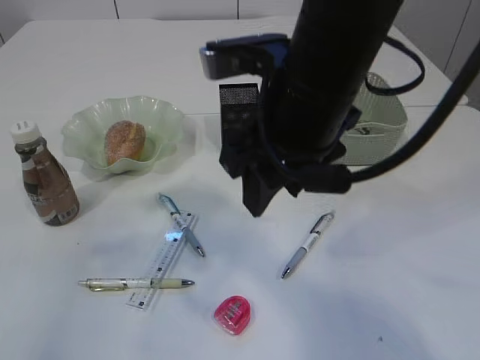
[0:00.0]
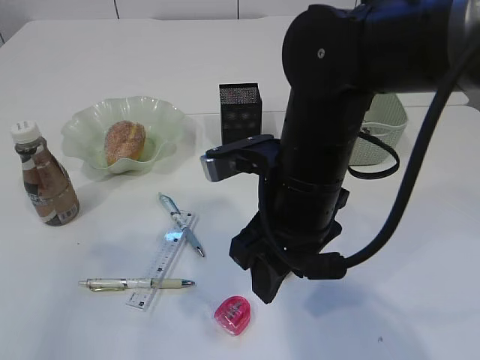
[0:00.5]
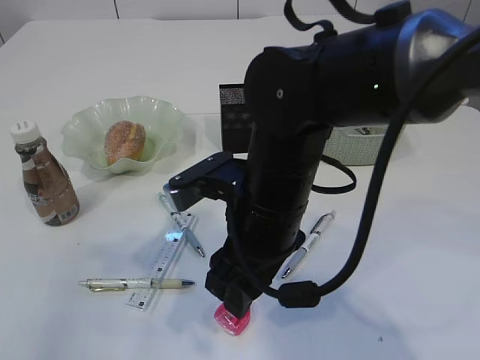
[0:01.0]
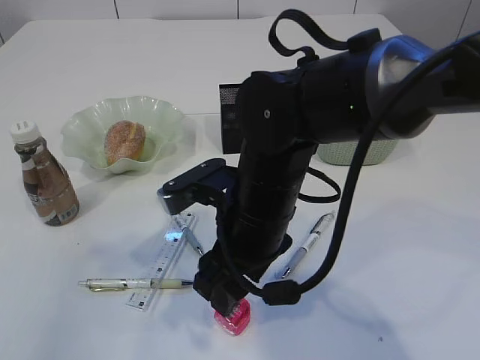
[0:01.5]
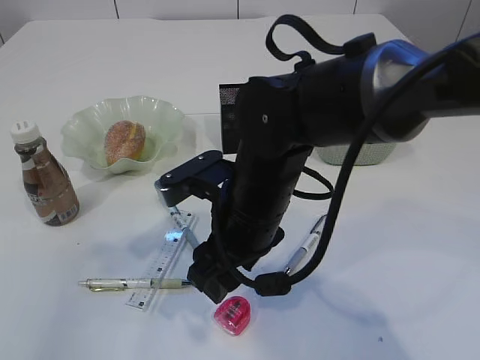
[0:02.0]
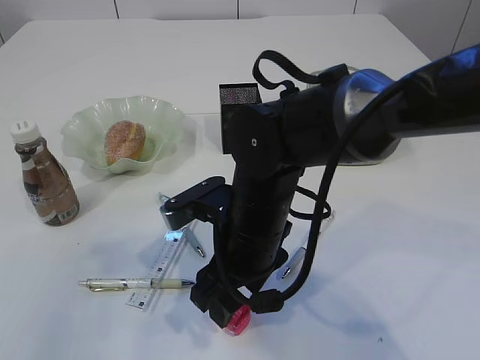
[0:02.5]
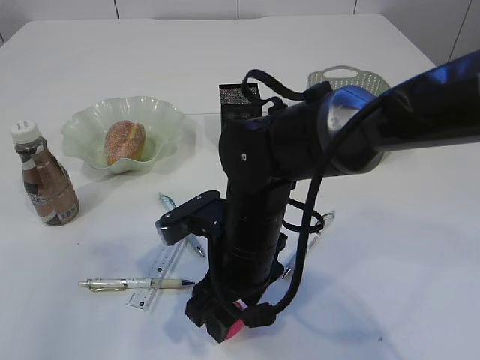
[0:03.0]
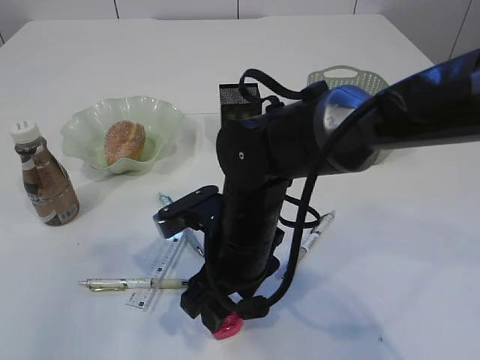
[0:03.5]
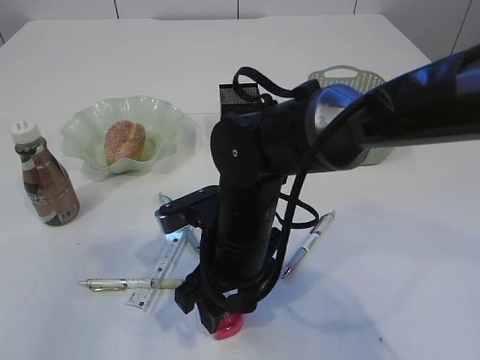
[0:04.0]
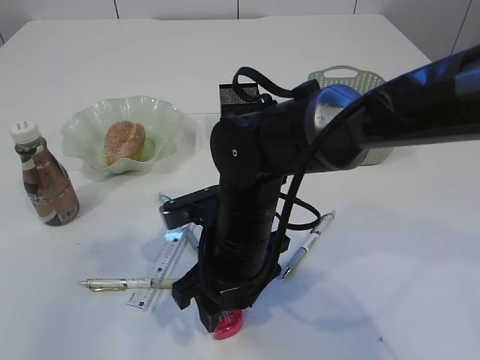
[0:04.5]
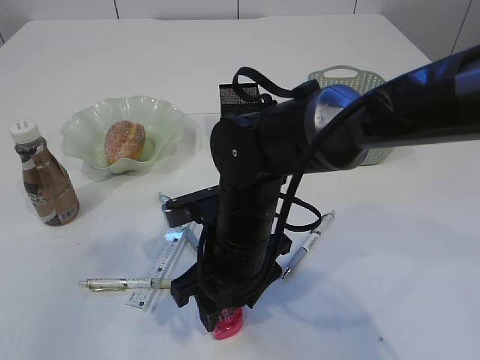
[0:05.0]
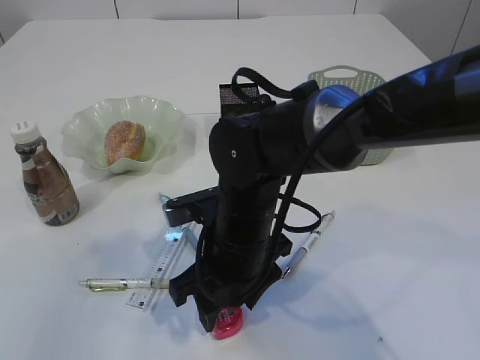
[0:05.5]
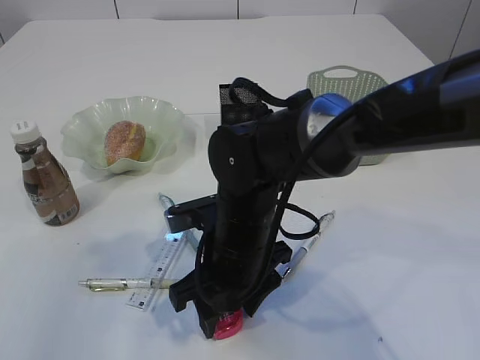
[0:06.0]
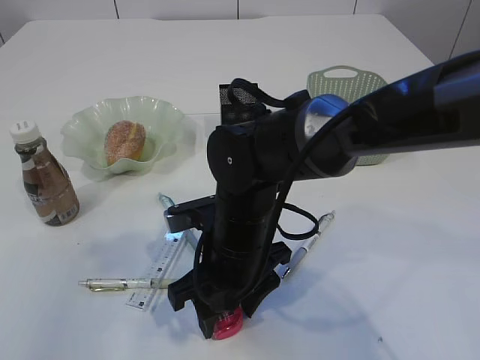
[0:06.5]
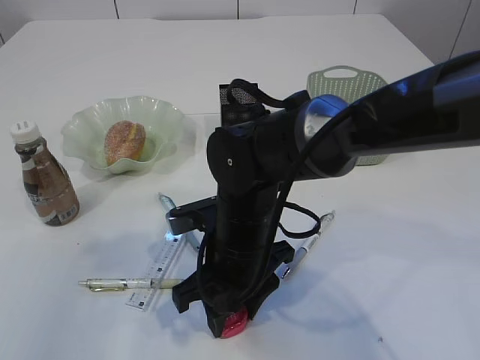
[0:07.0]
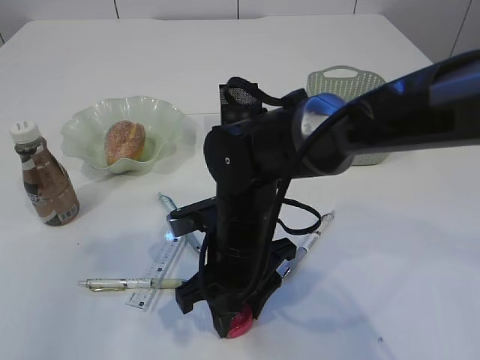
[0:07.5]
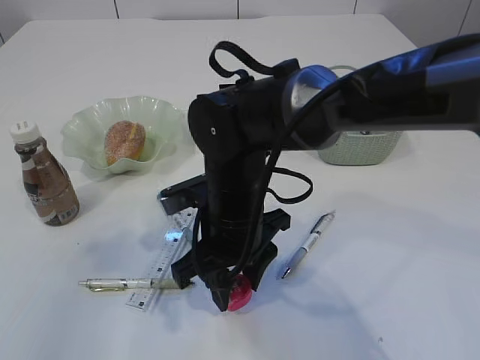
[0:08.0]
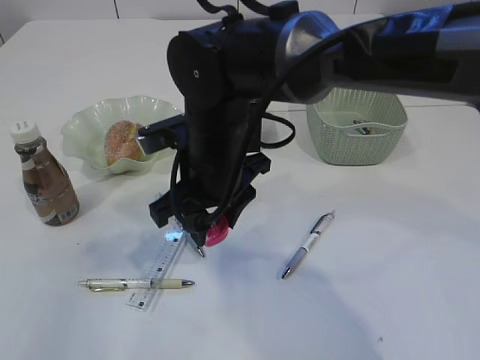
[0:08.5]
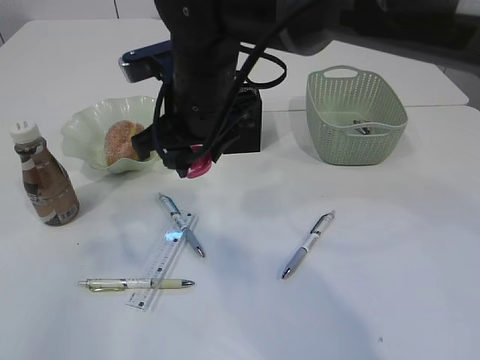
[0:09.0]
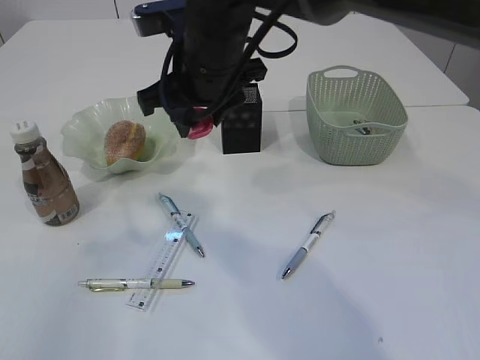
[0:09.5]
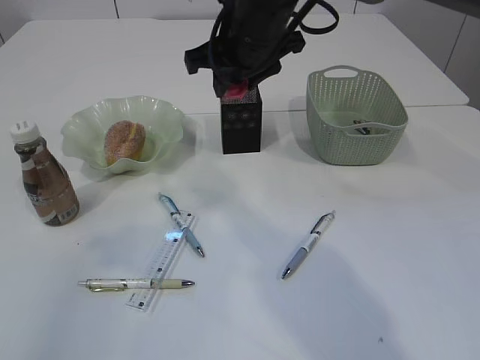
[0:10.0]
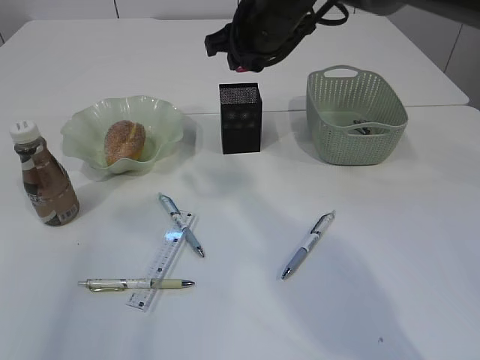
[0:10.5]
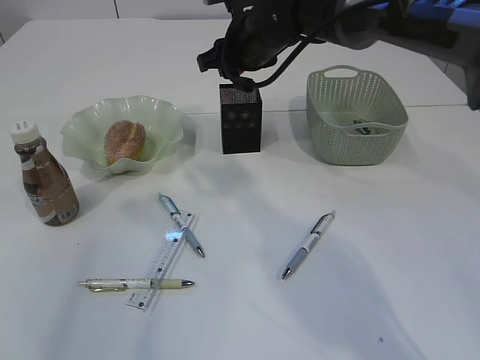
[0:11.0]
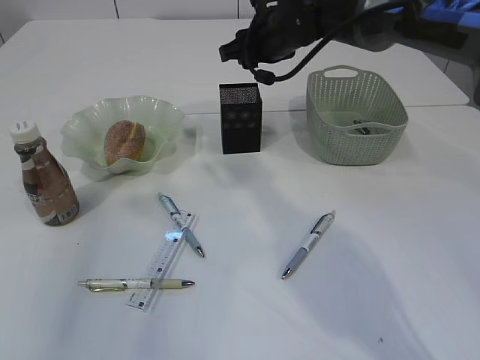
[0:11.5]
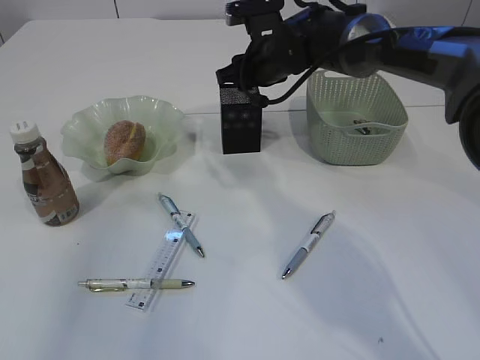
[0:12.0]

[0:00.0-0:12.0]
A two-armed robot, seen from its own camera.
Step, 0:00.0 to 0:08.0: Pick up the red pencil sharpener.
0:00.0 to 0:02.0: The right gripper shifts some 10 cm downward.
0:02.0 to 0:04.0: The grippers move only a little.
0:04.0 to 0:08.0: The grippers move only a little.
0:08.0 to 0:10.0: The right gripper shifts some 20 cm upward and forward.
0:10.0 to 0:12.0: The right gripper heads forward and downward, covering approximately 10 cm.

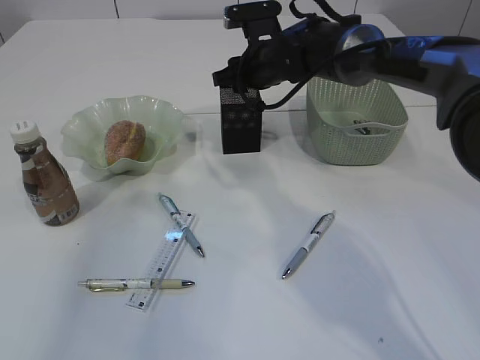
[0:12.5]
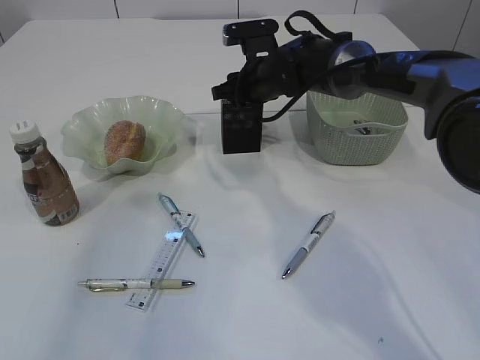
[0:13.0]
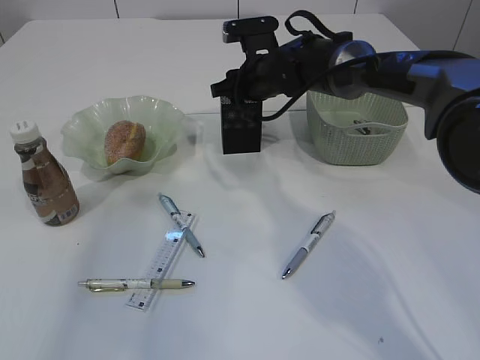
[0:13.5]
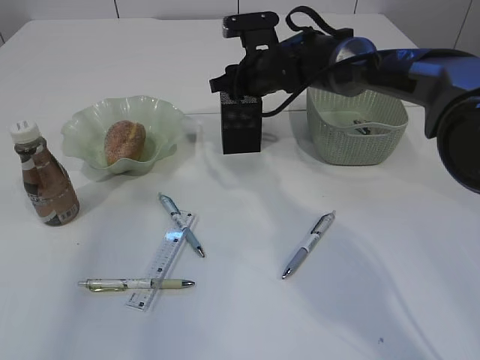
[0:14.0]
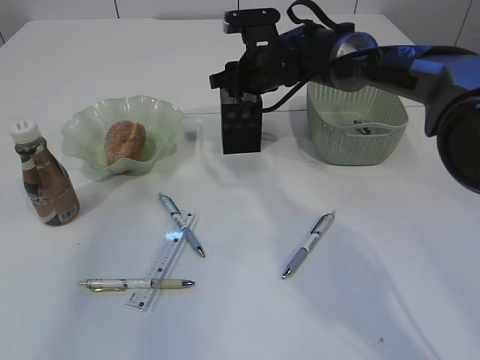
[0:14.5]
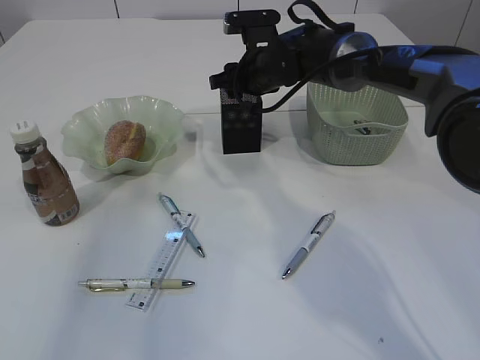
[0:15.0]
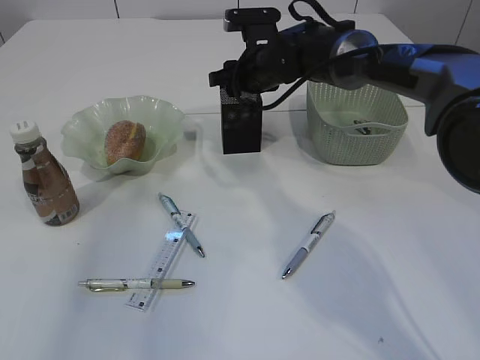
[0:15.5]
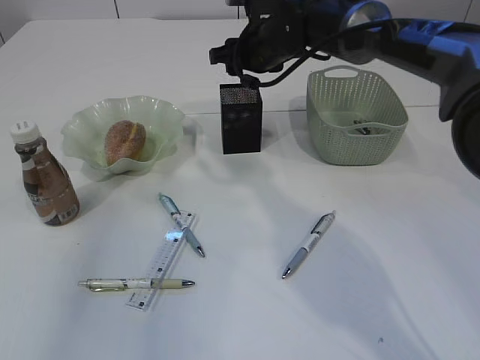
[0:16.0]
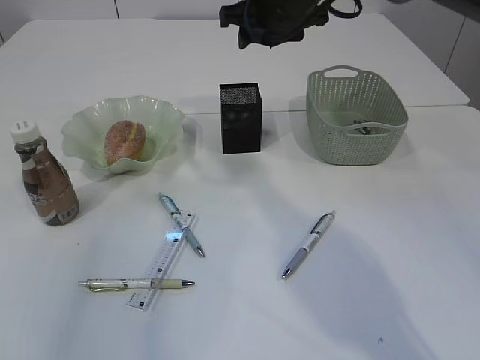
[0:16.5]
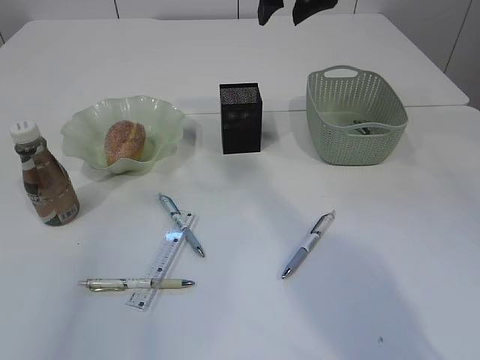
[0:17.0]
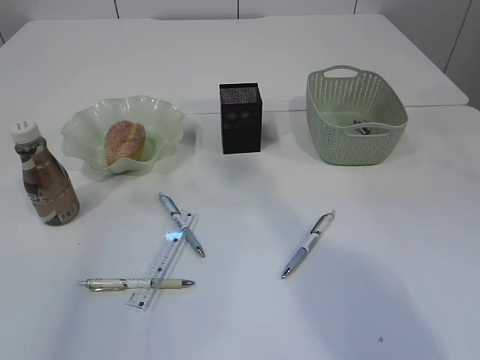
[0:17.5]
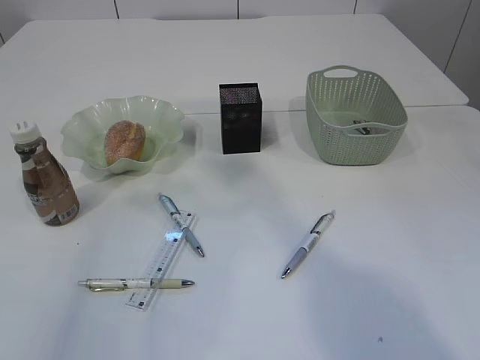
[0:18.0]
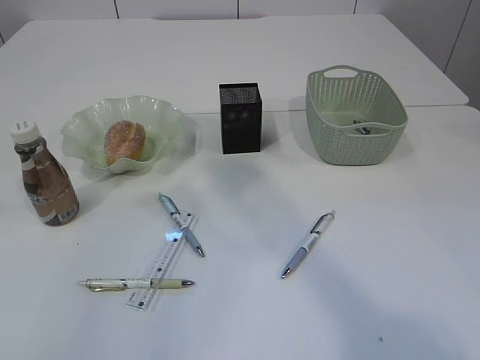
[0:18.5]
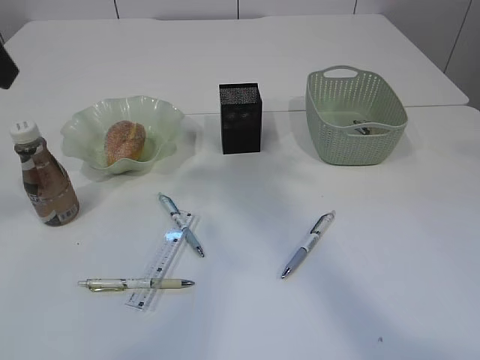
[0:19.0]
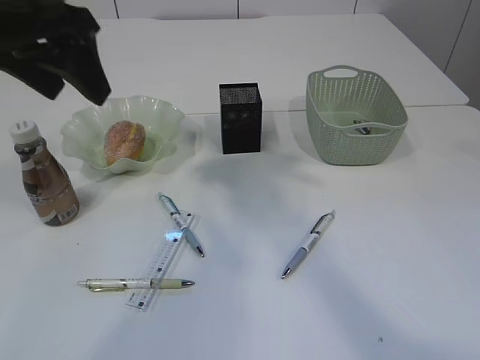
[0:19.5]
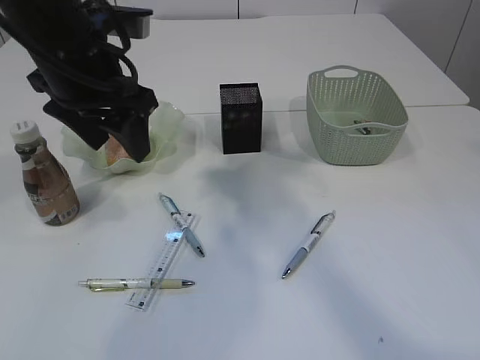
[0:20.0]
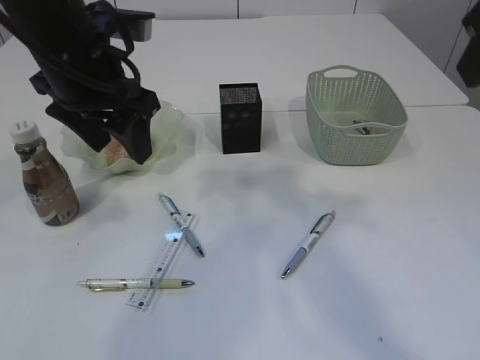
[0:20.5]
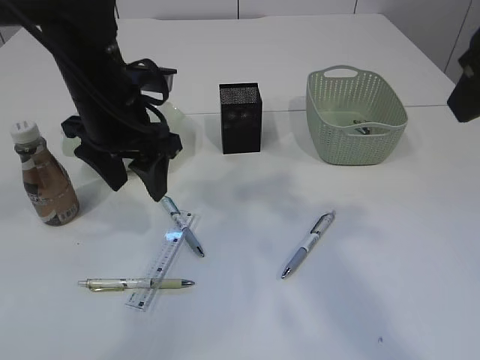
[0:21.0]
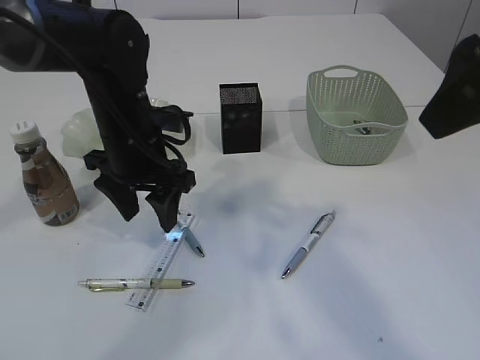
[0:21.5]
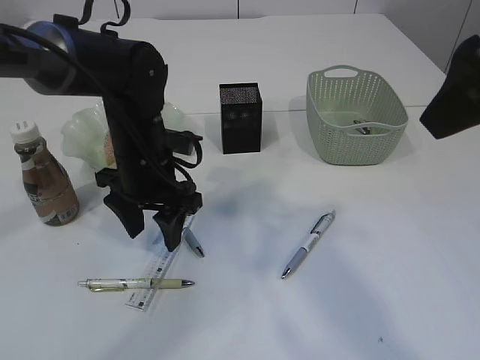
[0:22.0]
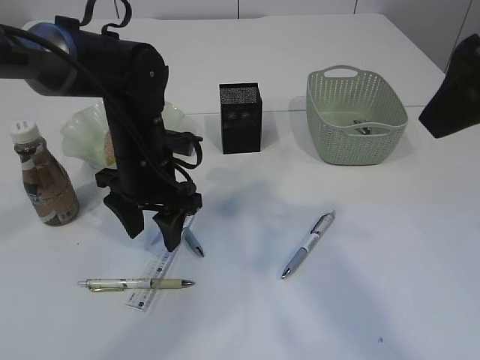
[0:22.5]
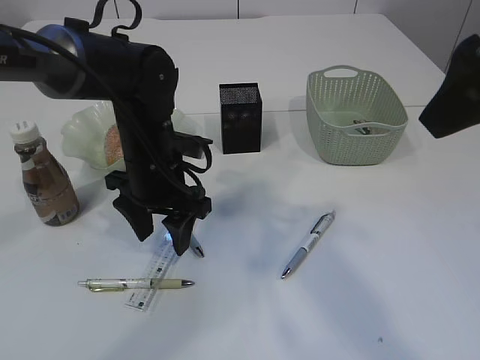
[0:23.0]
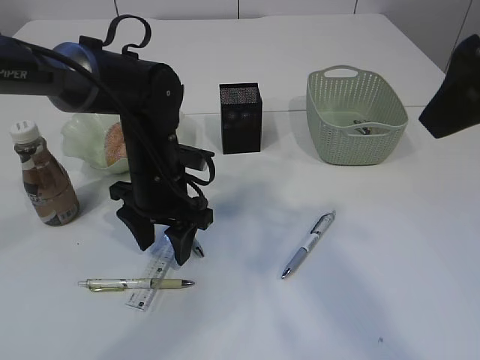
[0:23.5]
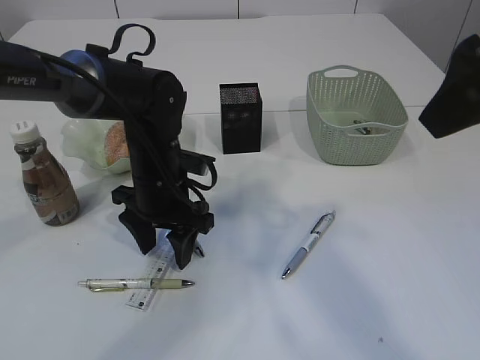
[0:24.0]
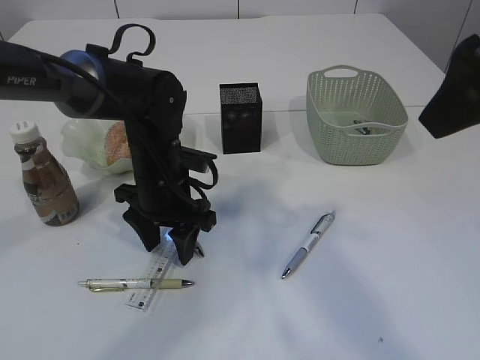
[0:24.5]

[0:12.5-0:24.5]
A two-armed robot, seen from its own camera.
Step, 0:12.5 to 0:16.0: Place the red pencil sharpener into the pen holder.
0:12.5 to 0:14.5: The grippers make only small movements.
0:14.5 to 0:16.5: The right gripper moves upward, about 10 cm.
0:16.5 to 0:18.5: The right gripper travels upward and backward by some 25 cm.
0:18.5 to 0:20.5: The left gripper goes roughly 20 cm forward, to the right and downward, while the right gripper goes approximately 10 cm downward and backward.
0:20.5 to 0:22.5: The left gripper shifts roughly 15 cm downward.
0:22.5 to 0:24.5: The grippers move only a little.

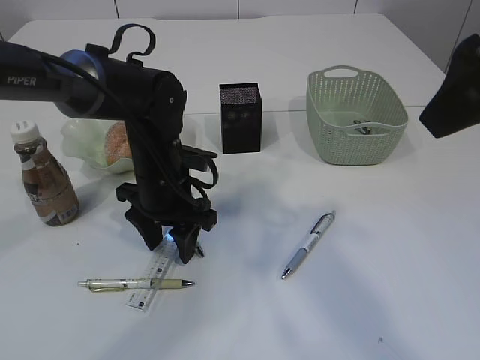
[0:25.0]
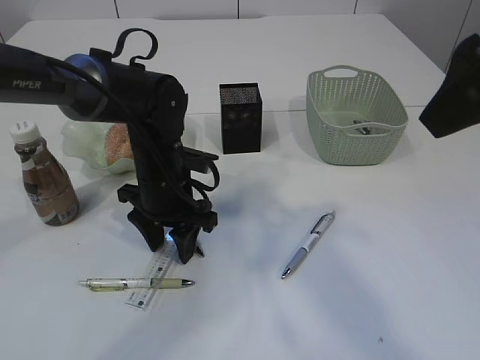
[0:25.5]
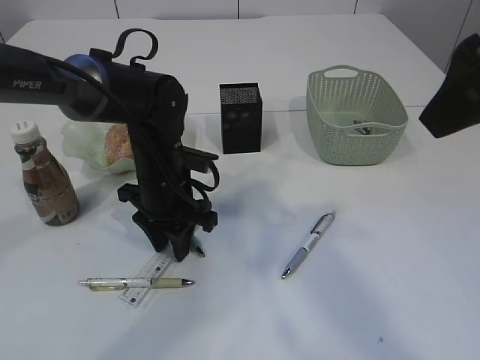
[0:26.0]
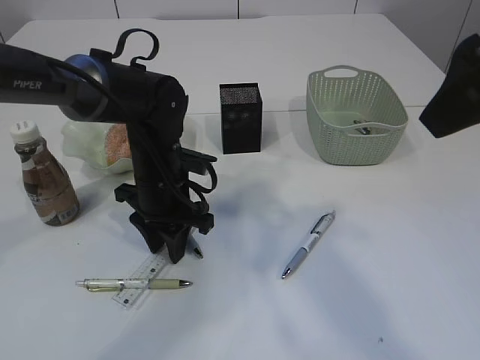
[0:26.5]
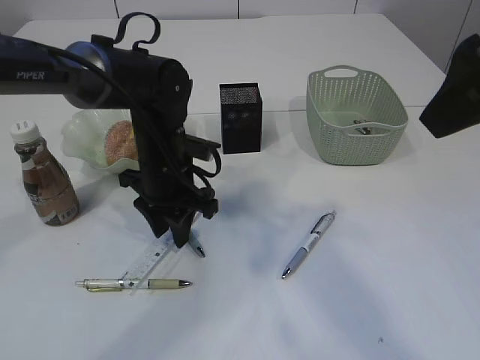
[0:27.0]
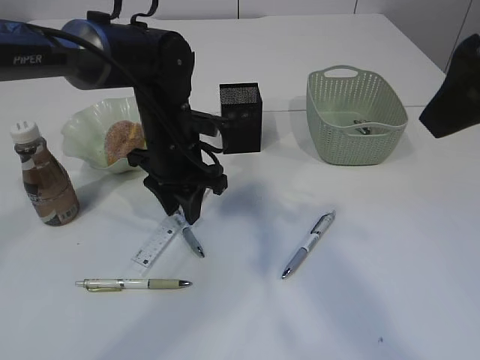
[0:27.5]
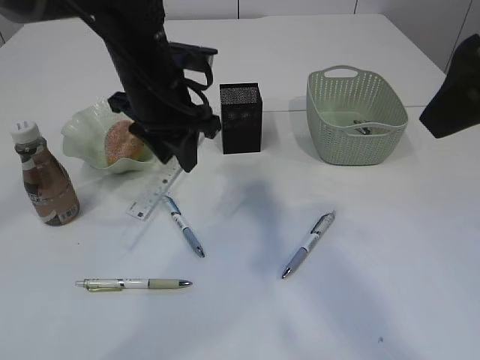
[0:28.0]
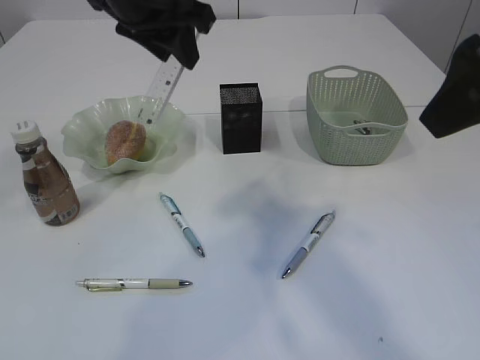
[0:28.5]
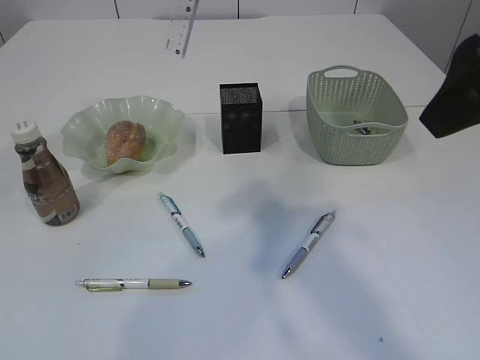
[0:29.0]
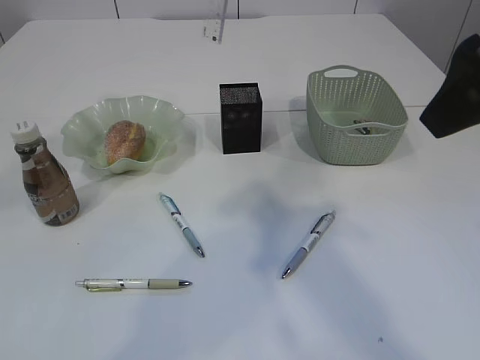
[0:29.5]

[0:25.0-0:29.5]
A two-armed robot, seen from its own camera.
Step, 0:25.0 to 0:27.5: pick up the ruler.
0:25.0 to 0:27.0: The left gripper closes its fingers.
0:27.0 to 0:29.5: The left gripper is displaced upward by approximately 25 cm.
